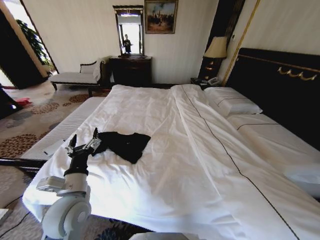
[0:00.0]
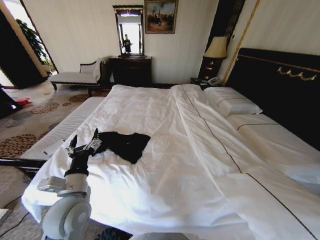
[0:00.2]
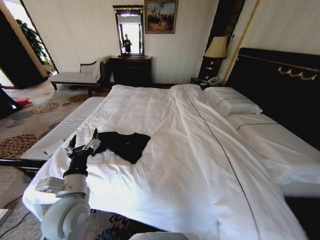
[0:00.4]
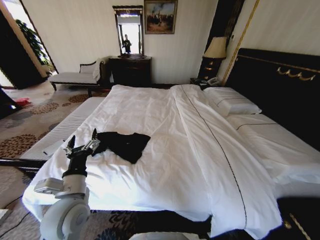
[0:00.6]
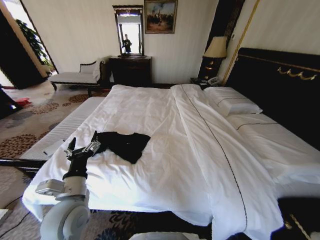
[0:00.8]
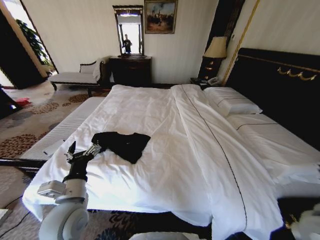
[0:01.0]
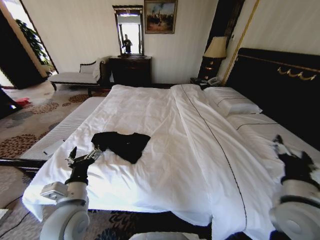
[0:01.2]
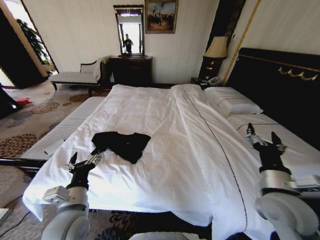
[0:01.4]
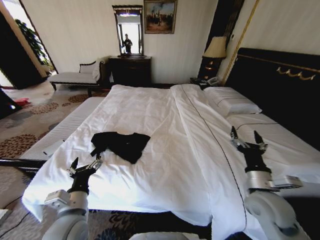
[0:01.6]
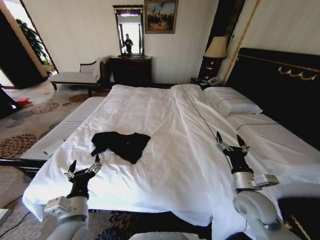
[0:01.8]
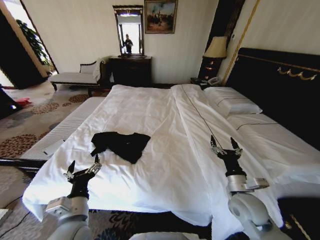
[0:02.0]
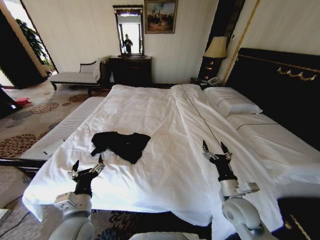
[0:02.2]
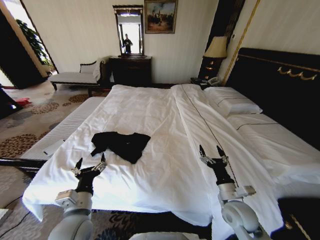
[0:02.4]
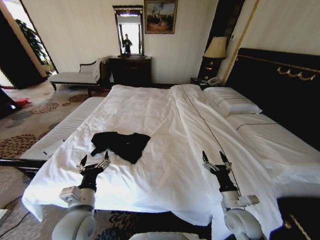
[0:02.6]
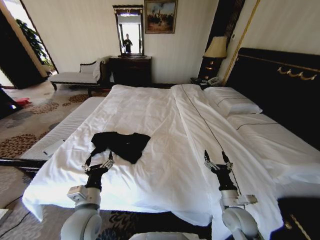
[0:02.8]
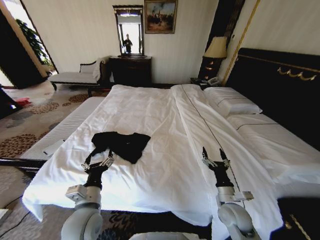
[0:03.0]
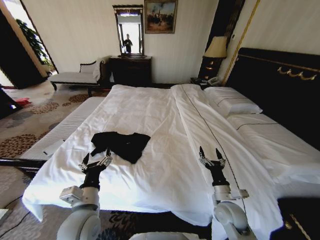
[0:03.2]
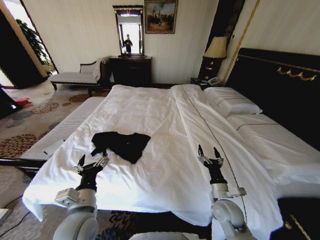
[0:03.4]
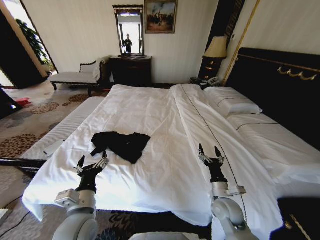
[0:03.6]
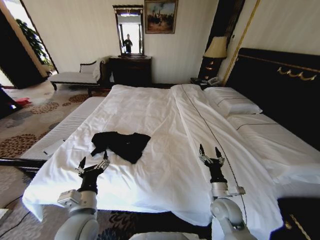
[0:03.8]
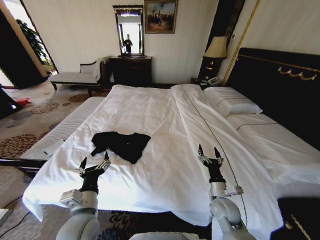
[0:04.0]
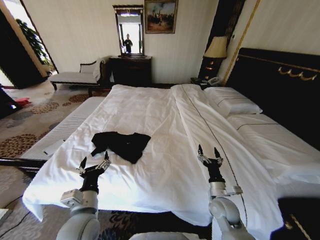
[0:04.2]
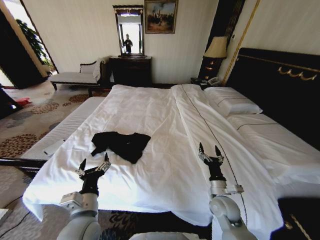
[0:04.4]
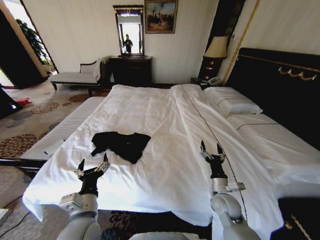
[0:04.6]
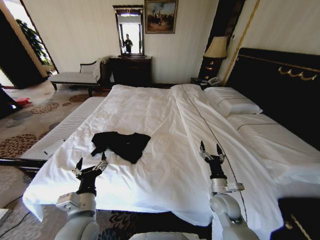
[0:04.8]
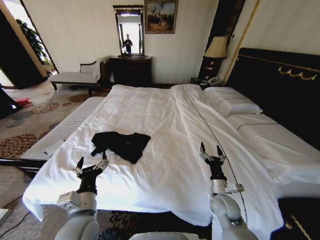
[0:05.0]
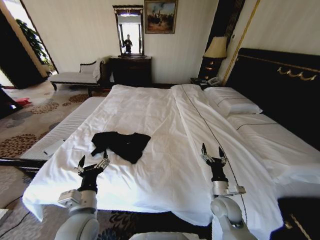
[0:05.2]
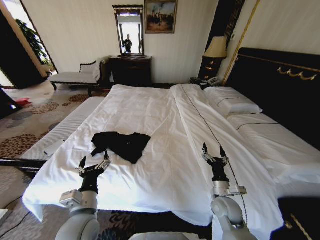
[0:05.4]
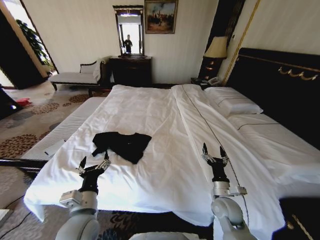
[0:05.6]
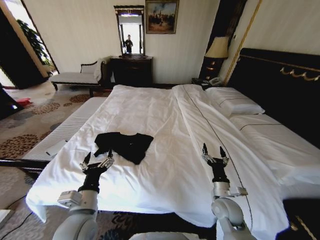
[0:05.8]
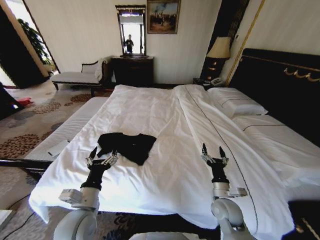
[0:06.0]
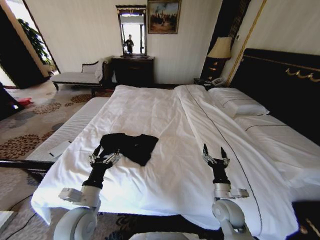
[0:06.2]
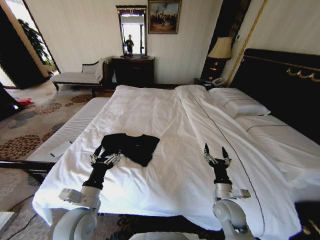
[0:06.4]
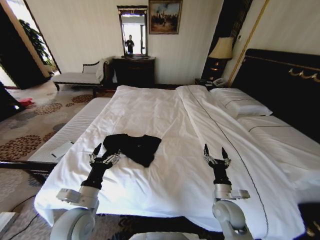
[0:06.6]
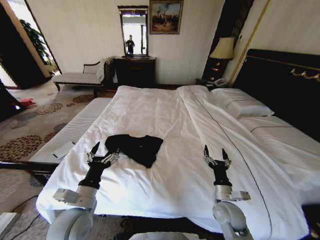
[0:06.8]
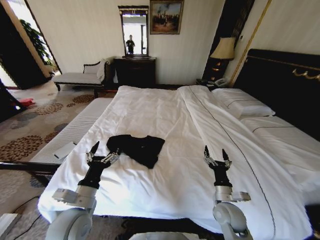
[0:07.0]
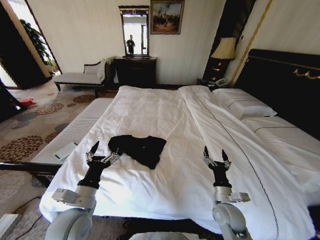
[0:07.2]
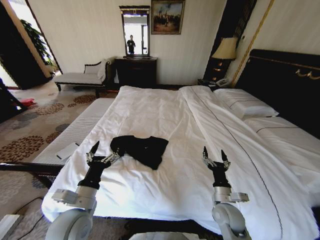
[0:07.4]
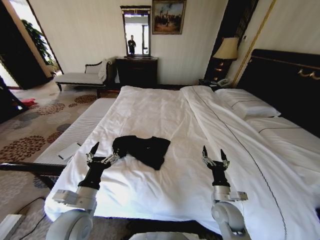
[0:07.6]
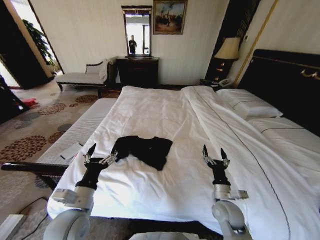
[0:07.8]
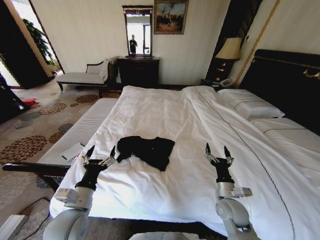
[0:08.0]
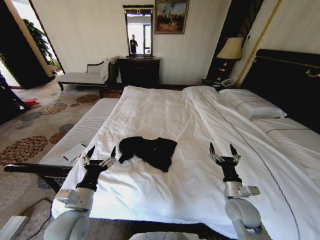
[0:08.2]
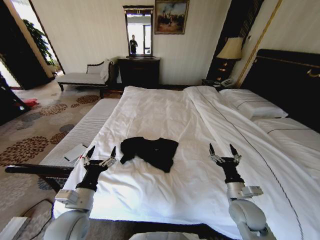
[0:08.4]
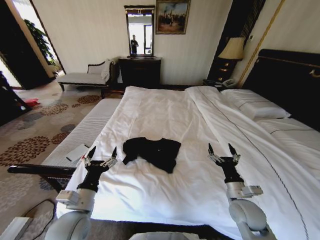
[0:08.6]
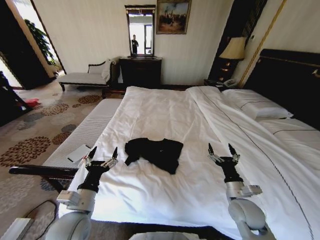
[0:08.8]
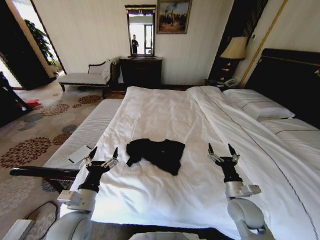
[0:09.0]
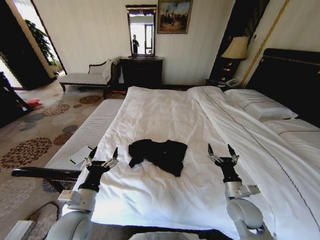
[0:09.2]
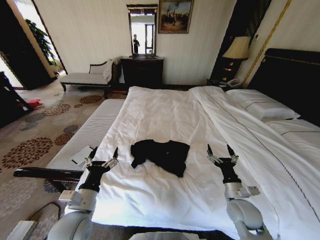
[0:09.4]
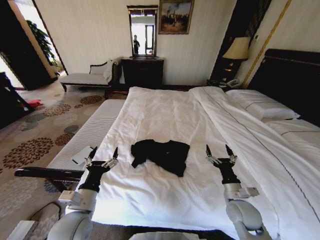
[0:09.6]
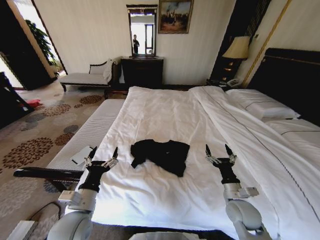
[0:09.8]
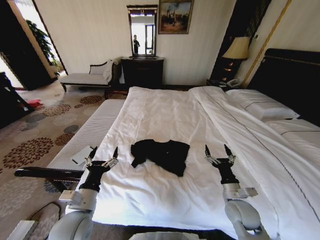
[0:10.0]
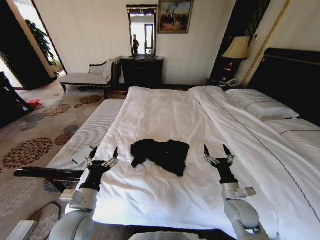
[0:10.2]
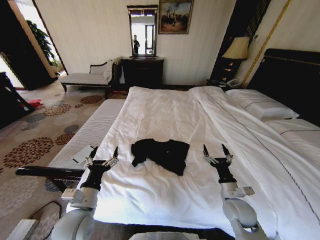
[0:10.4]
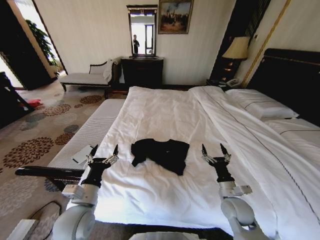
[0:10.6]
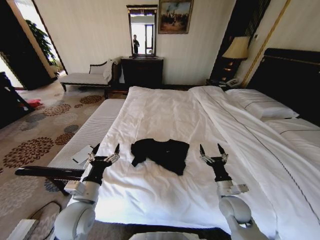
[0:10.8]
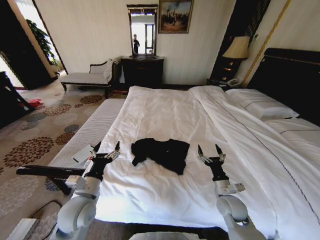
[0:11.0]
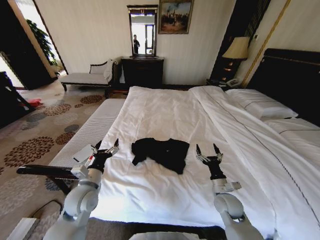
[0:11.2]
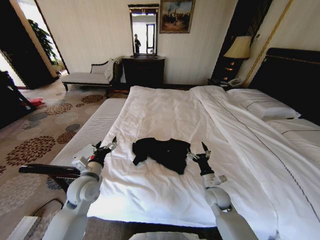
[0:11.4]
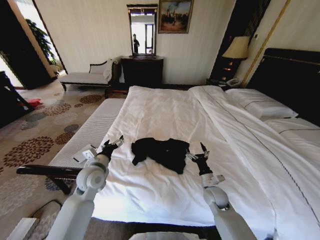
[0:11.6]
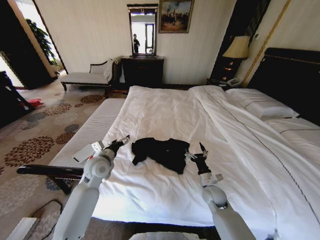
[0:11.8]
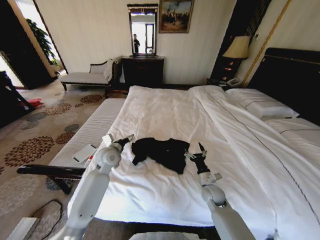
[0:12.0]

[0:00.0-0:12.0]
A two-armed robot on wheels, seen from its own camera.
Task of the whole recording: Fold the clothes on the bed.
0:00.0 to 0:01.6: The right gripper travels forward and to the left by about 15 cm, and opens up. Meanwhile the left gripper moves roughly 5 cm.
0:01.6 to 0:03.0: The right gripper travels downward by about 15 cm.
0:03.0 to 0:04.4: The grippers make only small movements.
0:07.6 to 0:09.0: The right gripper changes place by about 5 cm.
0:09.0 to 0:10.4: There are only small adjustments of the grippers.
0:10.4 to 0:12.0: The left gripper shifts some 25 cm forward; the right gripper travels forward and downward by approximately 10 cm.

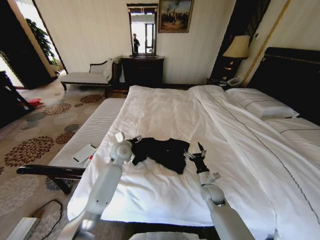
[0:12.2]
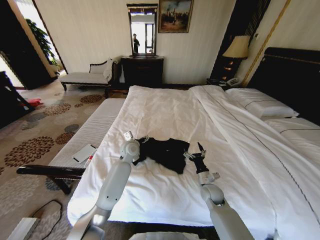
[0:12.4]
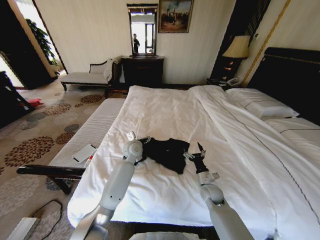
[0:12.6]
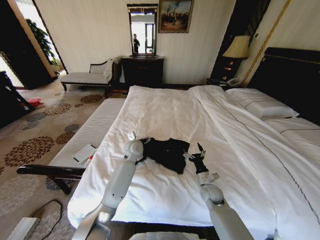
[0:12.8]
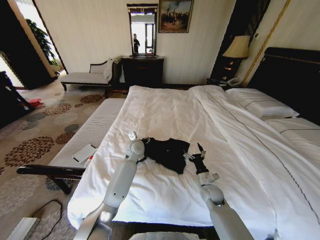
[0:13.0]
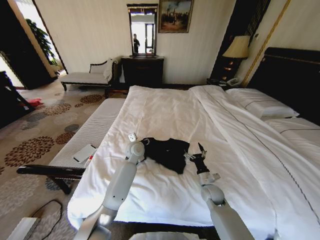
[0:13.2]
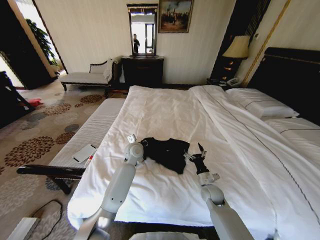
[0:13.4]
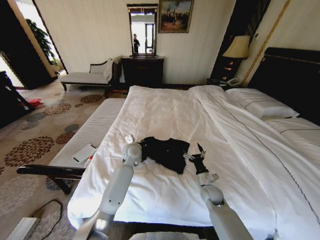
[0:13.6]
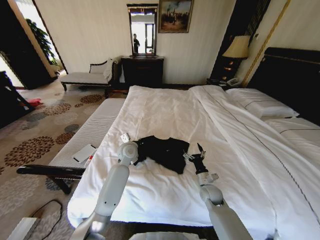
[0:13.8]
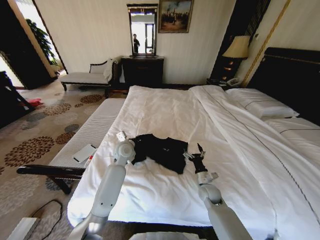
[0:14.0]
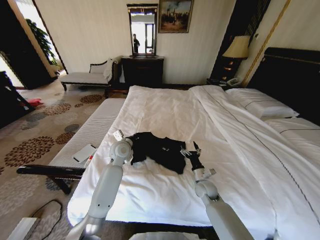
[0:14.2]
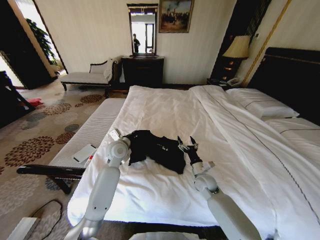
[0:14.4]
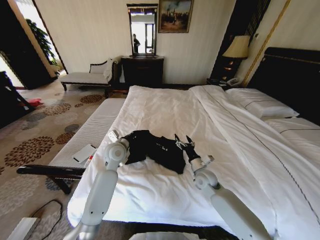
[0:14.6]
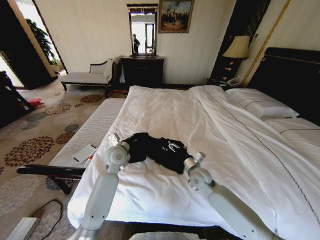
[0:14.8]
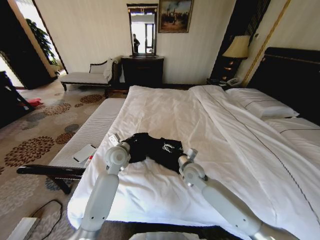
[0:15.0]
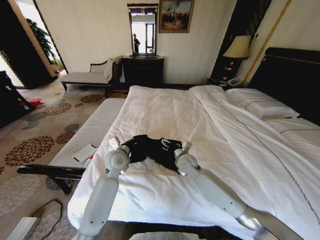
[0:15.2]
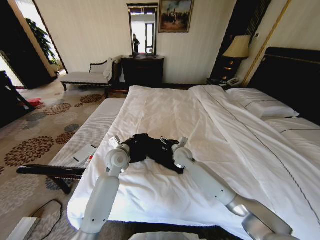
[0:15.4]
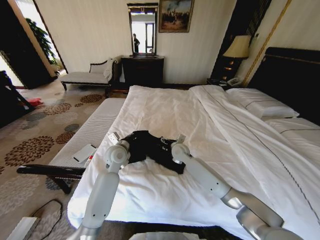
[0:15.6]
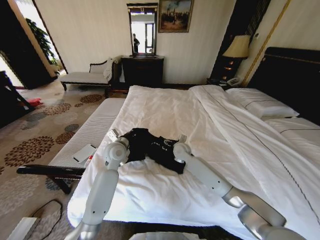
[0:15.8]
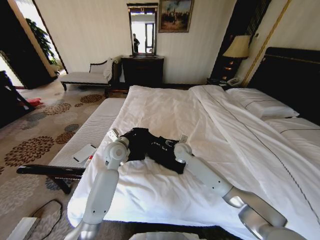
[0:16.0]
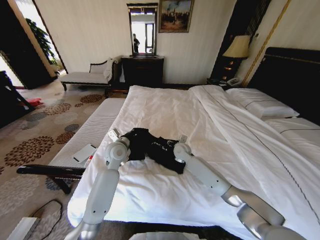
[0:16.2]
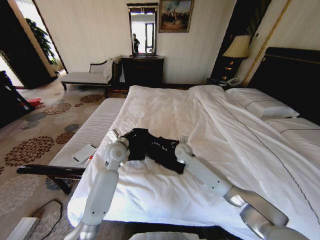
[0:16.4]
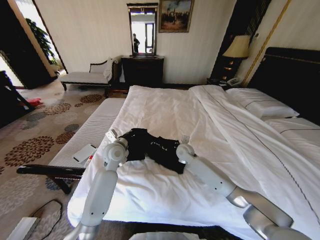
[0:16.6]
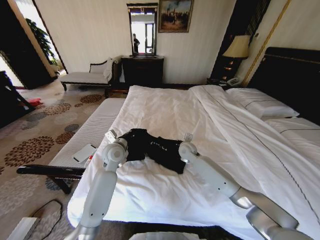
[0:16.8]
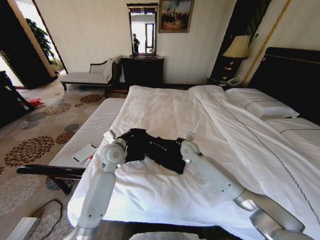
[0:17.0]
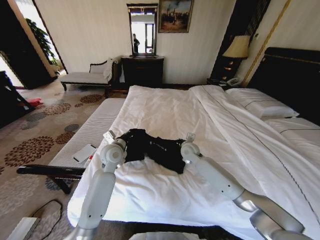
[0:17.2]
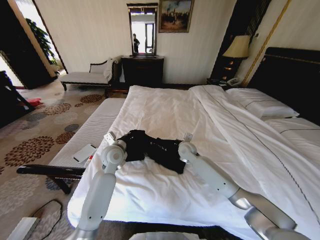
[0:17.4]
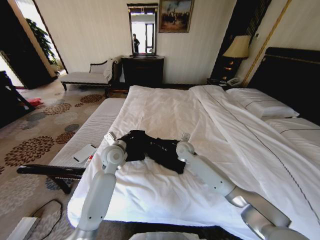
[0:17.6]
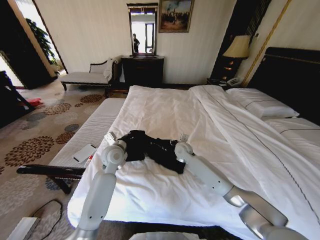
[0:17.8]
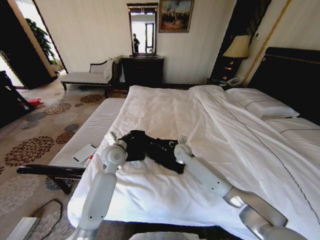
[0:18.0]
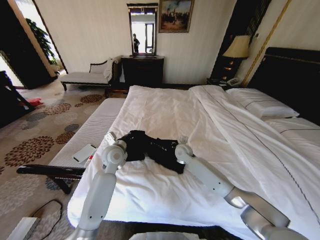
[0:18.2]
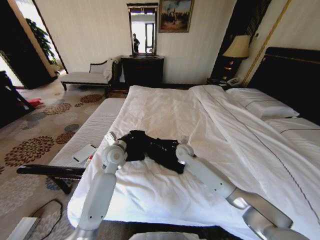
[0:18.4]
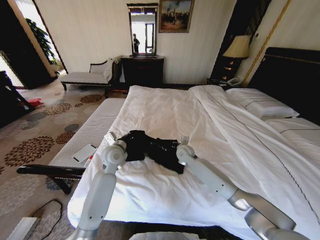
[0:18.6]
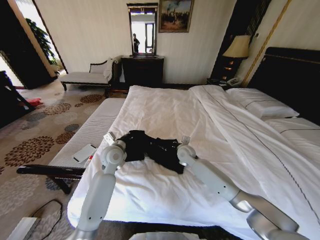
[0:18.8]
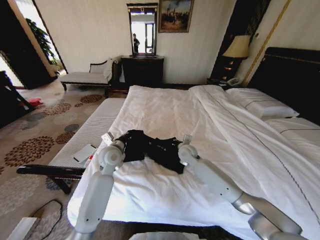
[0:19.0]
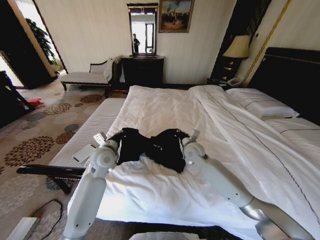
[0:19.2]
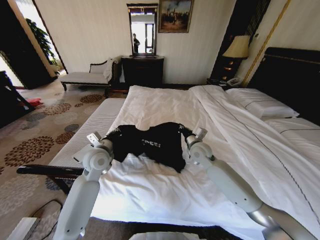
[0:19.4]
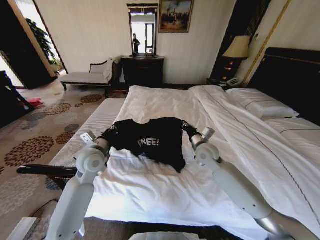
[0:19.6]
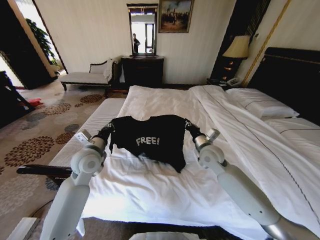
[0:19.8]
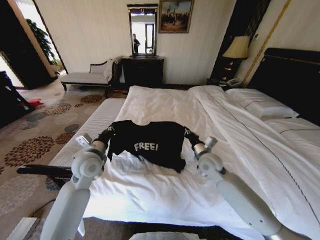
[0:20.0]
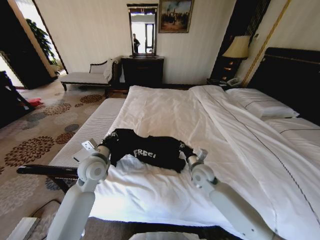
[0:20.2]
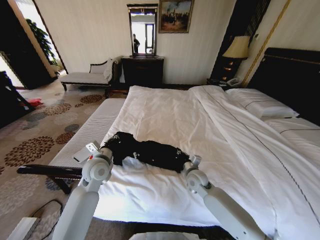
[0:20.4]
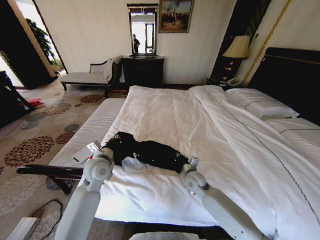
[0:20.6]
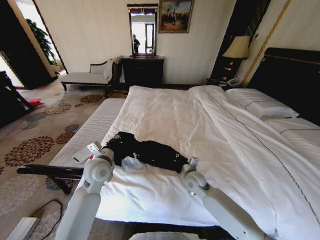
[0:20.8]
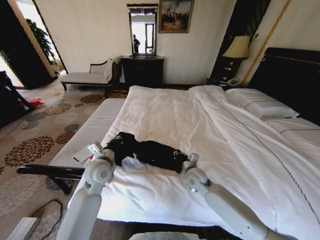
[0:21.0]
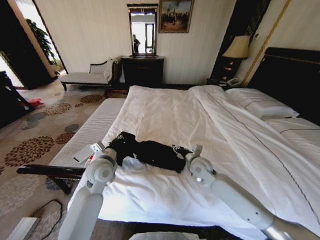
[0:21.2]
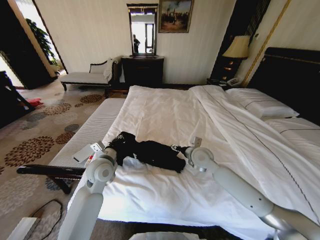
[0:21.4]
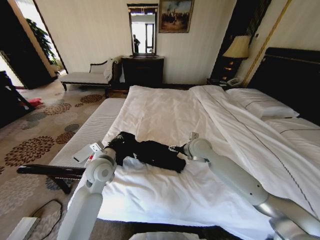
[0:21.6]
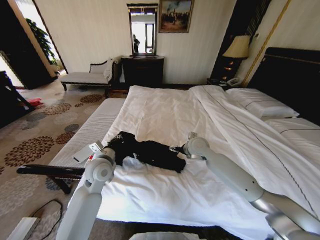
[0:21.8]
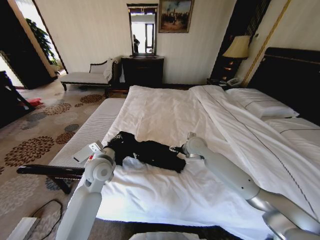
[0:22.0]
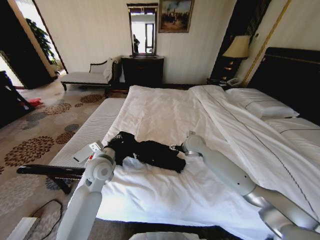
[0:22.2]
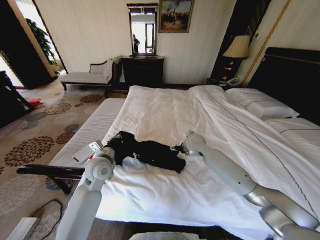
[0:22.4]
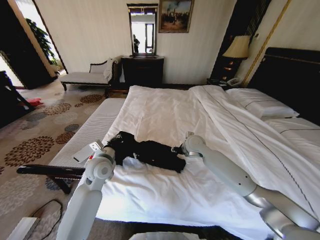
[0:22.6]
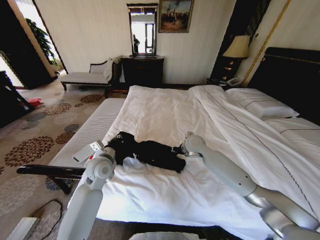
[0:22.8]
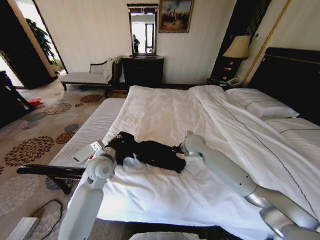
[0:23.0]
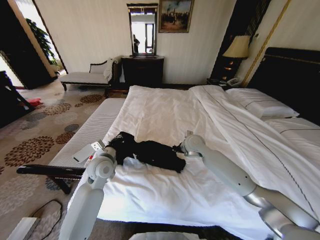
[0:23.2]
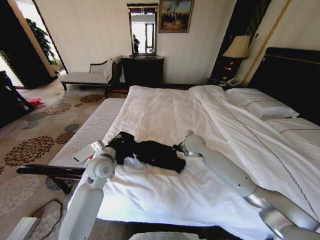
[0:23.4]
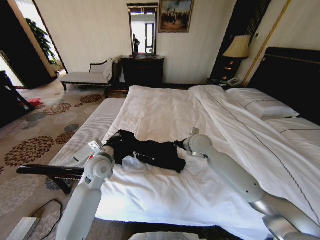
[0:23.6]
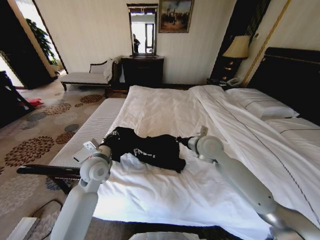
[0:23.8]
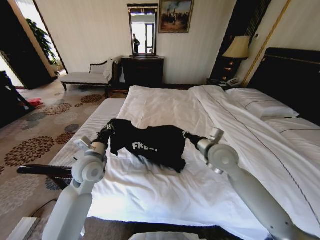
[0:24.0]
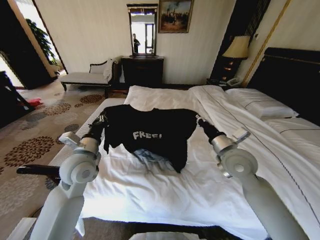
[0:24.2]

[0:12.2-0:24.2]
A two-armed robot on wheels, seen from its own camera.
Task of the whole recording: Fold the clothes on the bed.
0:12.2 to 0:13.8: The left gripper closes.
0:13.8 to 0:15.2: The right gripper is displaced upward, to the left and forward by roughly 20 cm. Meanwhile the left gripper heads backward, covering some 5 cm.
0:15.2 to 0:16.6: The right gripper shifts about 5 cm forward, and closes its fingers.
0:16.6 to 0:18.2: There are only small adjustments of the grippers.
0:18.2 to 0:19.8: The left gripper is displaced to the left and backward by roughly 10 cm. The right gripper is displaced upward, backward and to the right by roughly 15 cm, and closes its fingers.
0:19.8 to 0:21.2: The left gripper changes place by about 5 cm. Meanwhile the right gripper heads downward, covering roughly 5 cm, and opens its fingers.
0:21.2 to 0:22.6: The right gripper shifts approximately 10 cm forward and upward, and opens, then closes once more.
0:22.6 to 0:24.2: The left gripper heads upward, covering about 5 cm. The right gripper is displaced backward, to the right and upward by approximately 20 cm, and closes.
